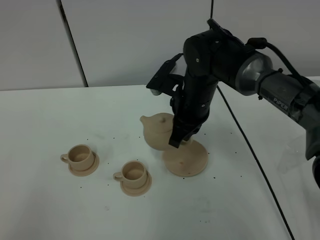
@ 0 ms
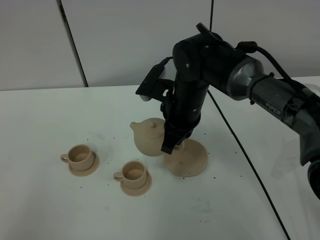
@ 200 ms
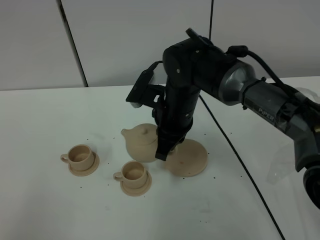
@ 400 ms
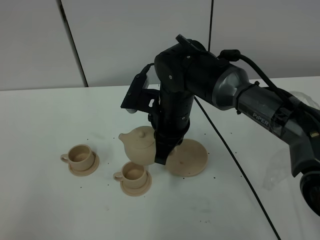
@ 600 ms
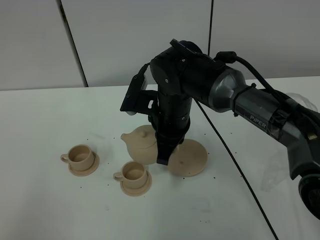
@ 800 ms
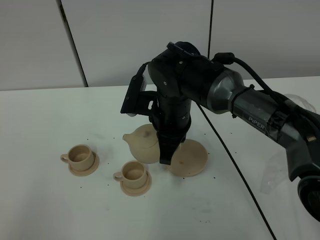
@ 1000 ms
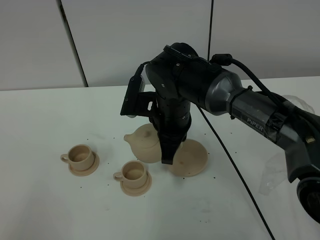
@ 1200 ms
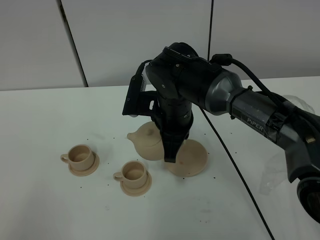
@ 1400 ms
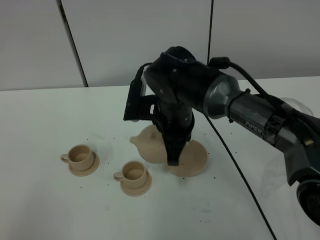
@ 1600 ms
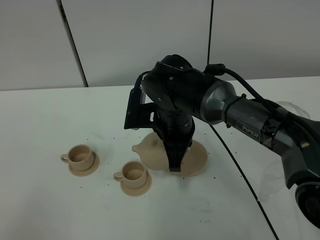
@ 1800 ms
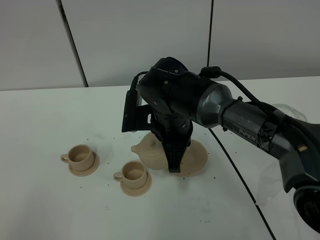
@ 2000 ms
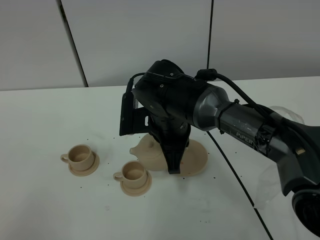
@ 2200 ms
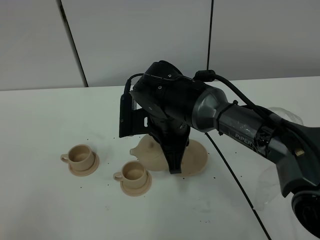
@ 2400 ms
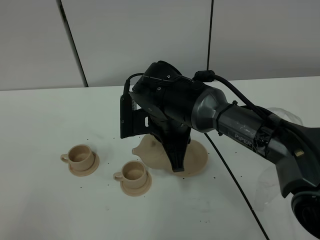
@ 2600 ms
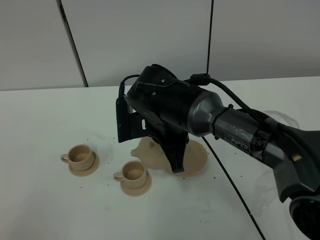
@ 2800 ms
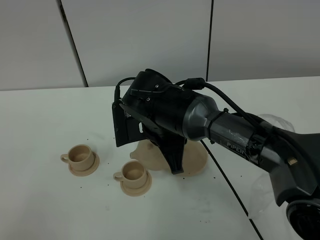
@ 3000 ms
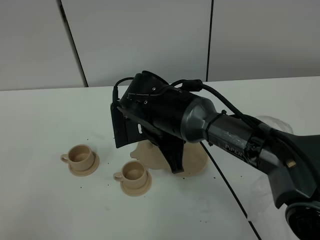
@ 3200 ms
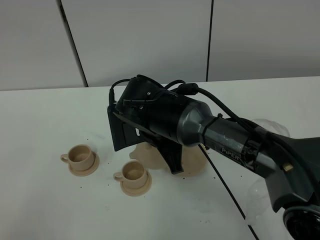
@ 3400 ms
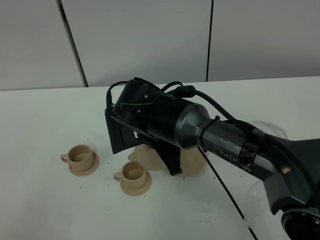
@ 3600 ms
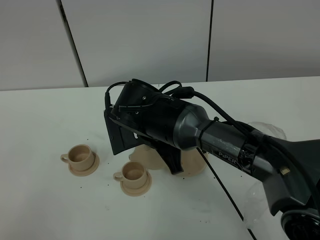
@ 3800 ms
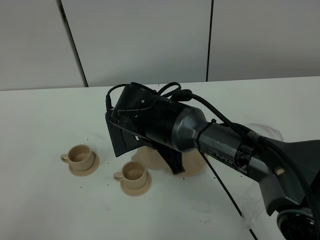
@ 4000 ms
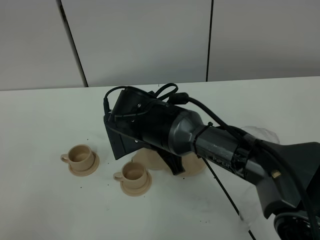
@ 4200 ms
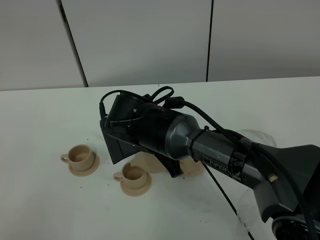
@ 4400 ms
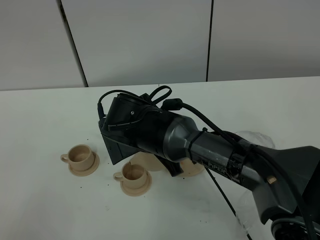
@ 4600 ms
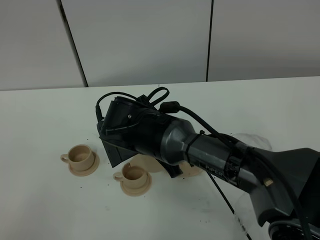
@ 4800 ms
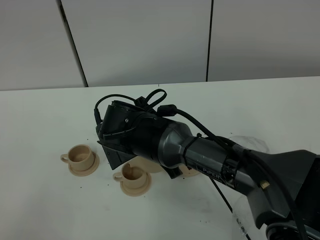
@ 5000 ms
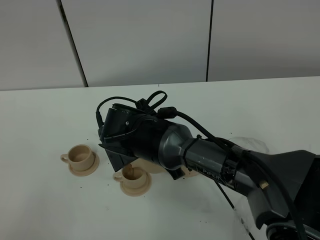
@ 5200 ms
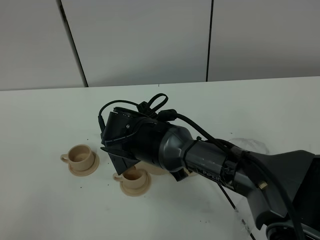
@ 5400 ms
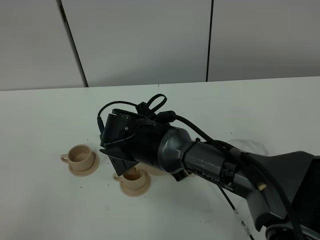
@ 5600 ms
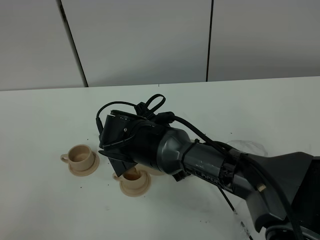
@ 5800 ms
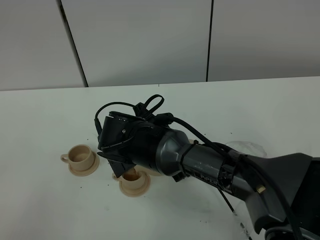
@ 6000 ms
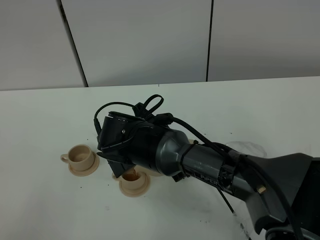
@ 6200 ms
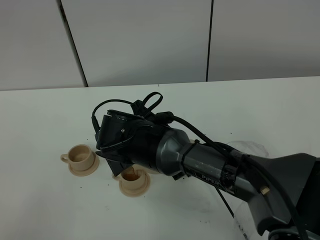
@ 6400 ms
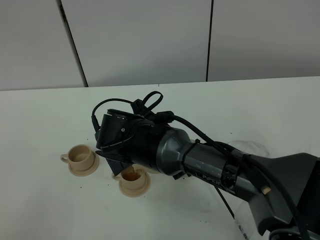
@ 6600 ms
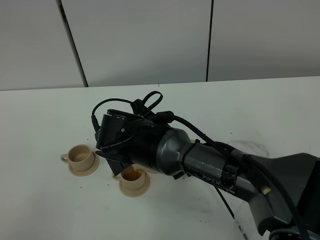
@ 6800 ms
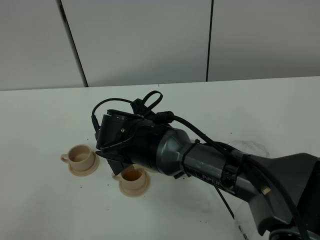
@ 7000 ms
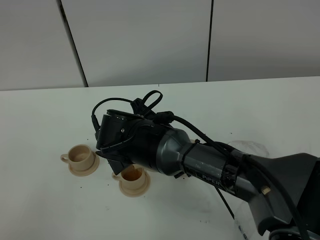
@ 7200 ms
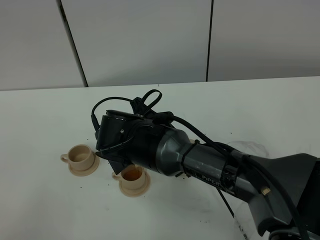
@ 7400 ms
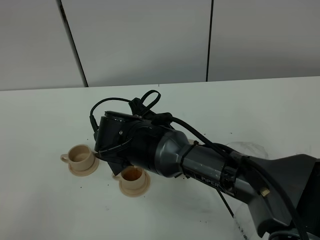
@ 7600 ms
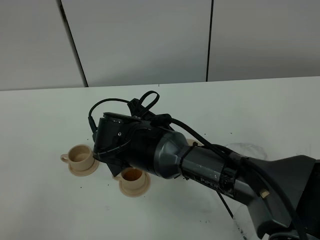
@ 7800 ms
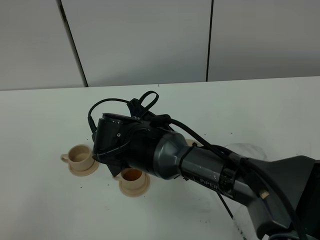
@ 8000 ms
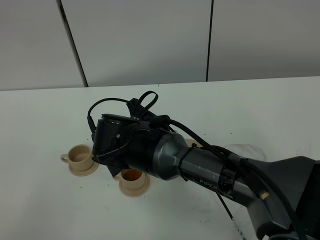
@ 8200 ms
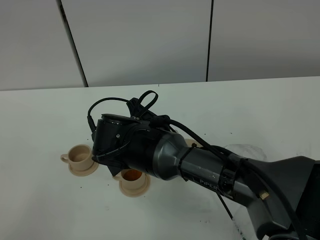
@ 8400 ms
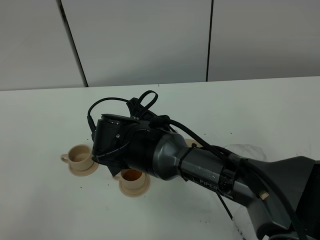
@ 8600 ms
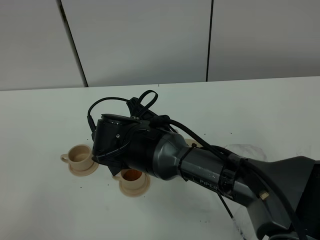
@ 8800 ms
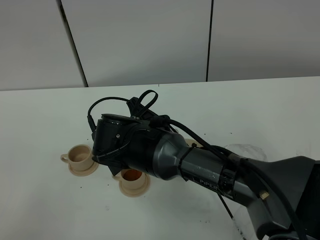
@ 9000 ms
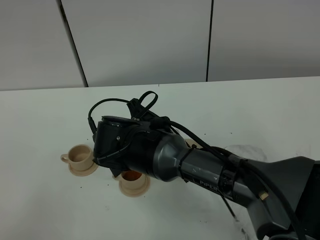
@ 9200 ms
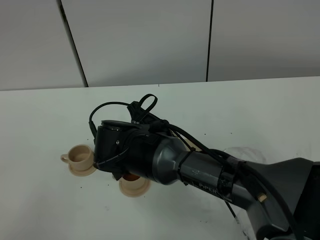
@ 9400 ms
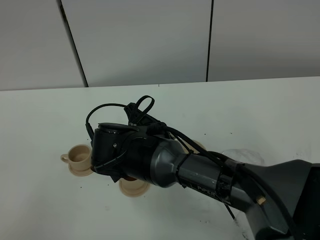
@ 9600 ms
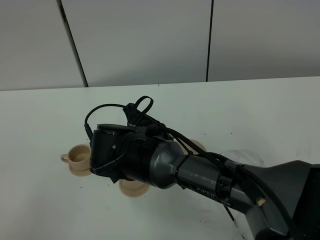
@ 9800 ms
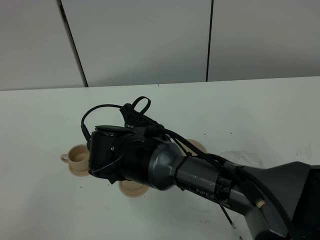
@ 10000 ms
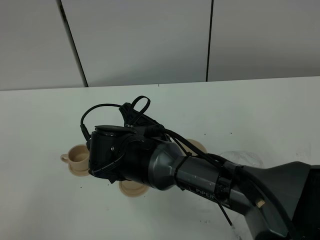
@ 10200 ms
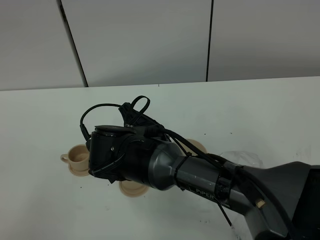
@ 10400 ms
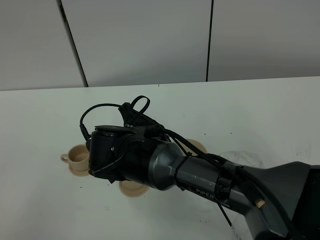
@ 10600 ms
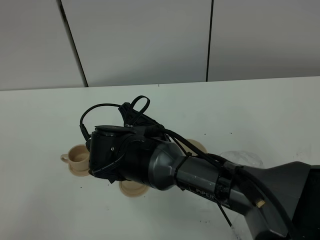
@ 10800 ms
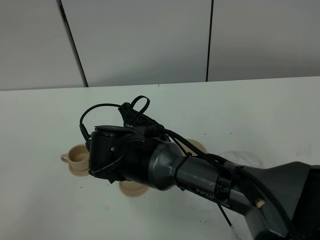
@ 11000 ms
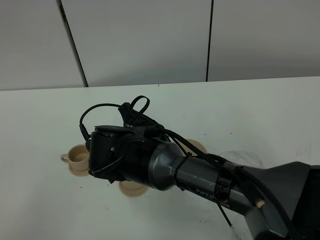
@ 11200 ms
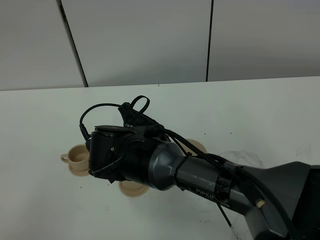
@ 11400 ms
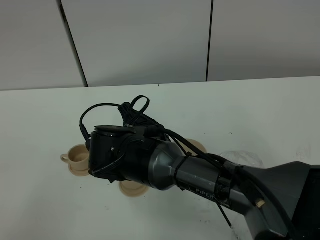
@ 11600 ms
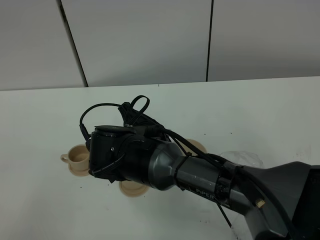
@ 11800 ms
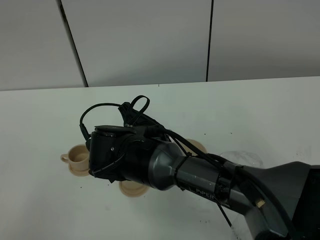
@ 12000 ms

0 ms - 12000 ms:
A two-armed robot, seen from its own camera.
Task of the whole recording: grasp the brown teapot and pour the tea into the two brown teacups one by one, put the brown teapot back in its original place.
0 ms - 1600 ms: The right gripper changes place by about 5 cm.
1600 ms - 3000 ms: The grippers stay close to where they were, moving slightly.
3000 ms - 4400 ms: The grippers make only small movements.
4400 ms - 6000 ms: The grippers make only small movements.
6000 ms - 7600 ms: The two grippers keep their place.
7600 ms - 9000 ms: The two grippers keep their place.
9000 ms - 10400 ms: Neither gripper changes place.
10400 ms - 12000 ms: Both grippers stay put.

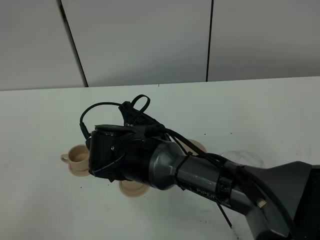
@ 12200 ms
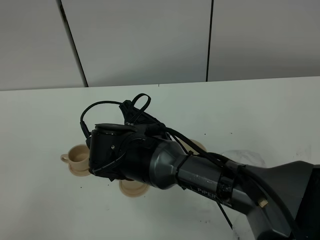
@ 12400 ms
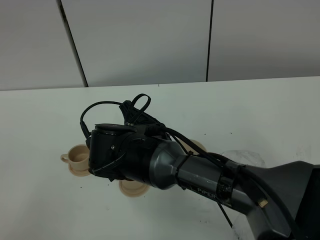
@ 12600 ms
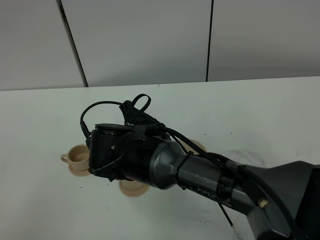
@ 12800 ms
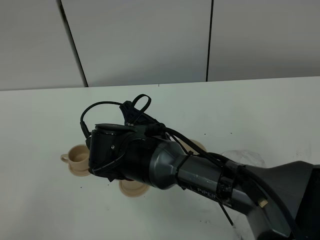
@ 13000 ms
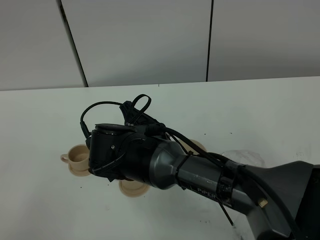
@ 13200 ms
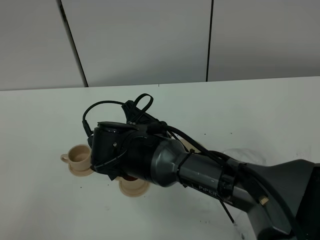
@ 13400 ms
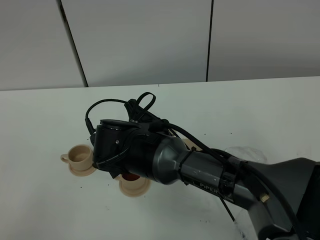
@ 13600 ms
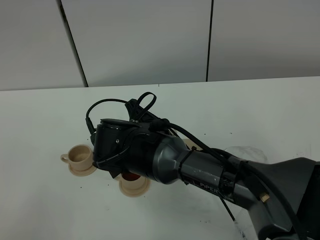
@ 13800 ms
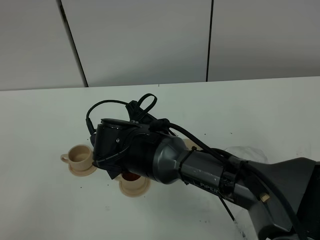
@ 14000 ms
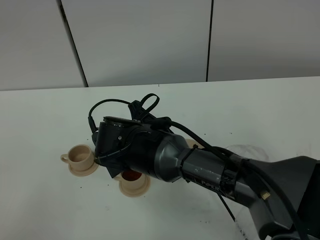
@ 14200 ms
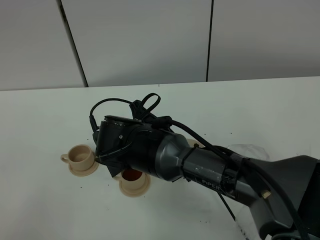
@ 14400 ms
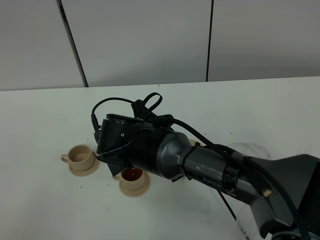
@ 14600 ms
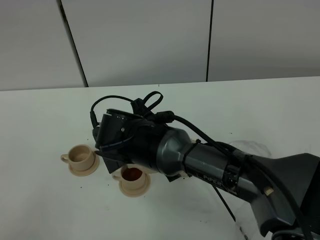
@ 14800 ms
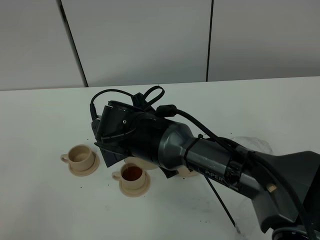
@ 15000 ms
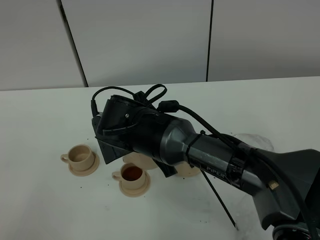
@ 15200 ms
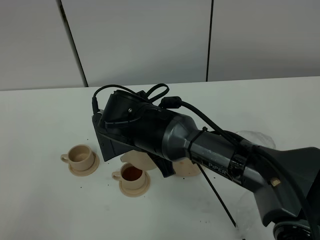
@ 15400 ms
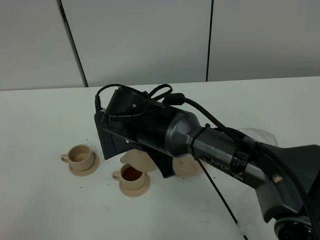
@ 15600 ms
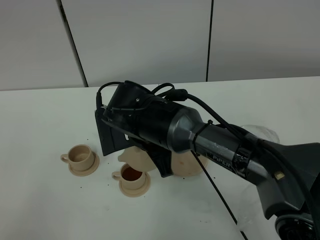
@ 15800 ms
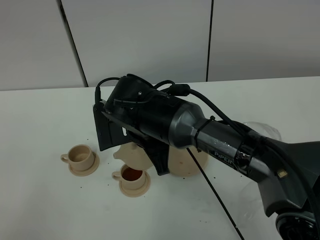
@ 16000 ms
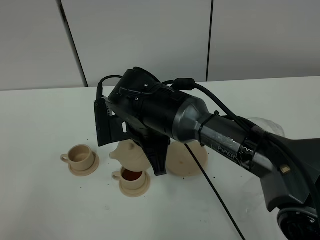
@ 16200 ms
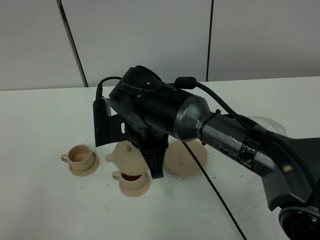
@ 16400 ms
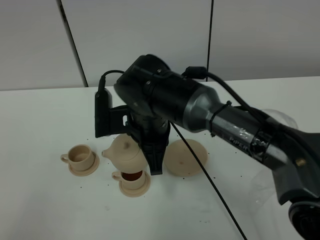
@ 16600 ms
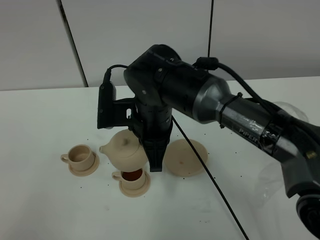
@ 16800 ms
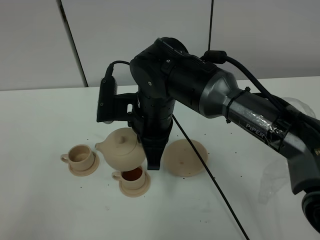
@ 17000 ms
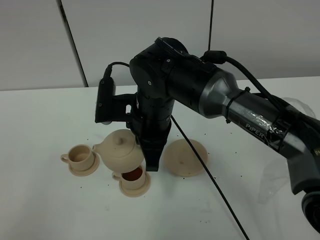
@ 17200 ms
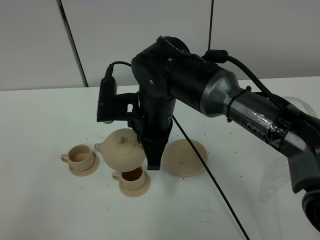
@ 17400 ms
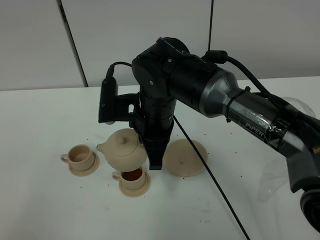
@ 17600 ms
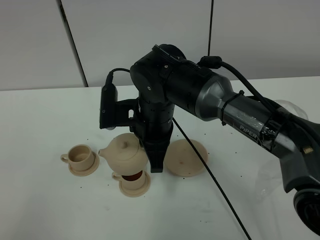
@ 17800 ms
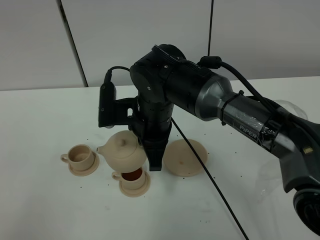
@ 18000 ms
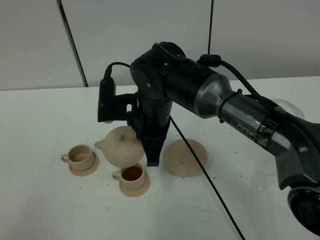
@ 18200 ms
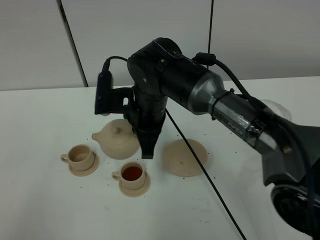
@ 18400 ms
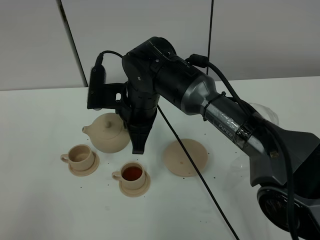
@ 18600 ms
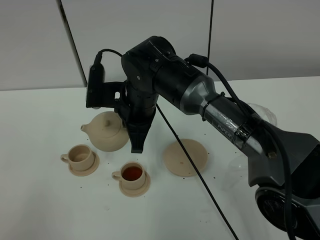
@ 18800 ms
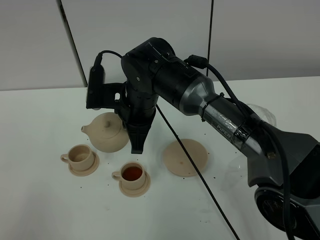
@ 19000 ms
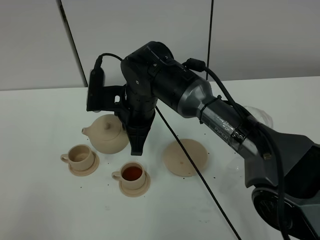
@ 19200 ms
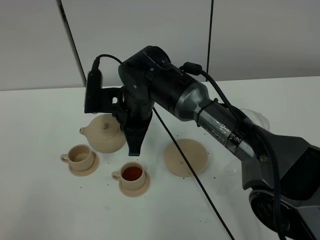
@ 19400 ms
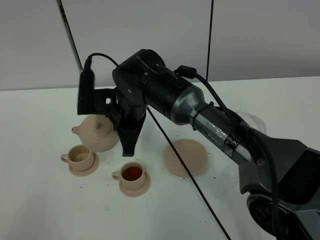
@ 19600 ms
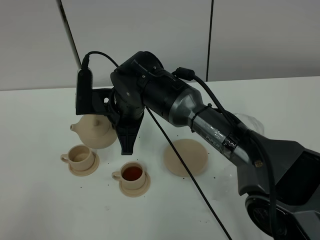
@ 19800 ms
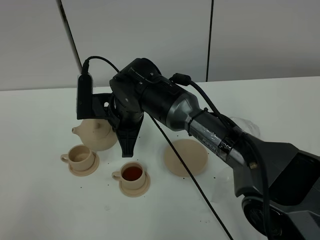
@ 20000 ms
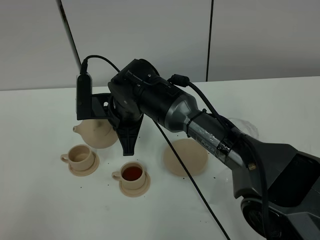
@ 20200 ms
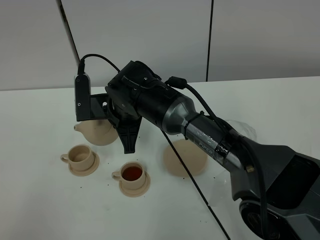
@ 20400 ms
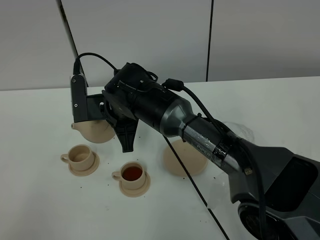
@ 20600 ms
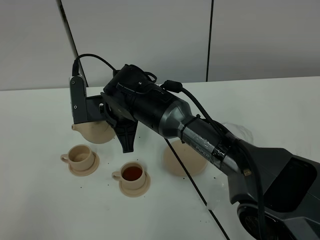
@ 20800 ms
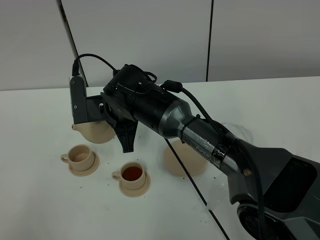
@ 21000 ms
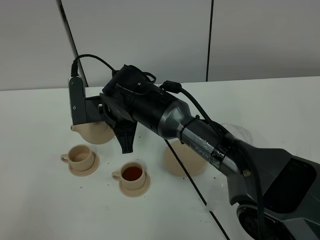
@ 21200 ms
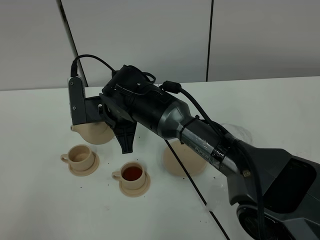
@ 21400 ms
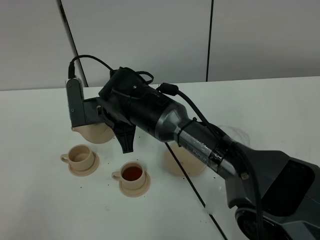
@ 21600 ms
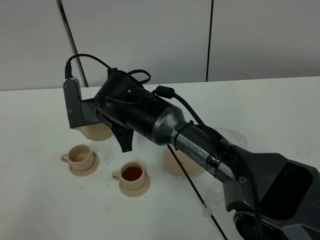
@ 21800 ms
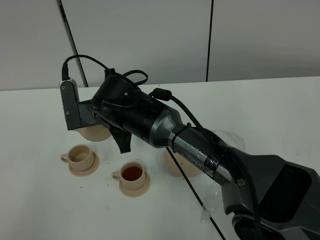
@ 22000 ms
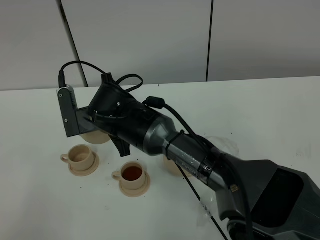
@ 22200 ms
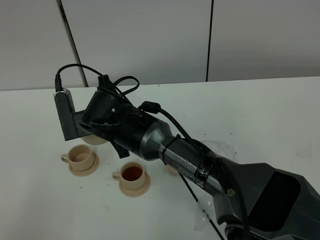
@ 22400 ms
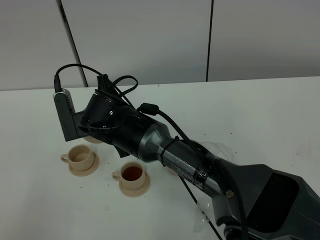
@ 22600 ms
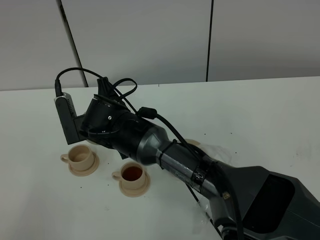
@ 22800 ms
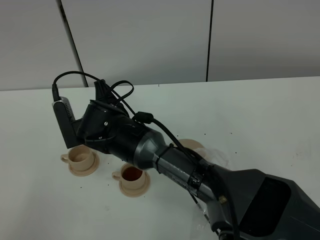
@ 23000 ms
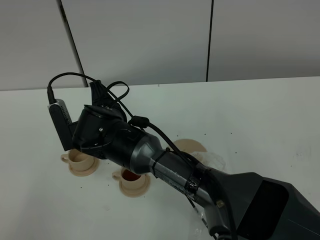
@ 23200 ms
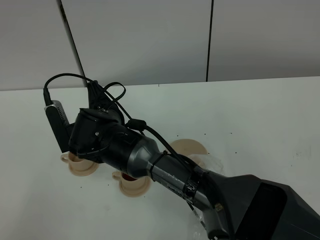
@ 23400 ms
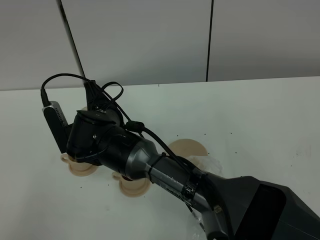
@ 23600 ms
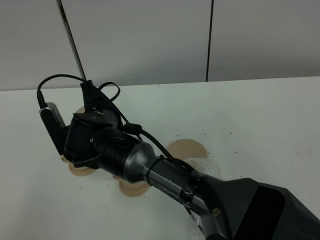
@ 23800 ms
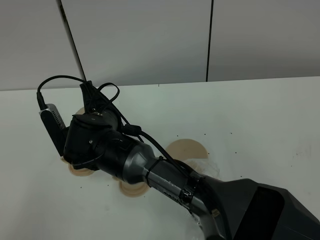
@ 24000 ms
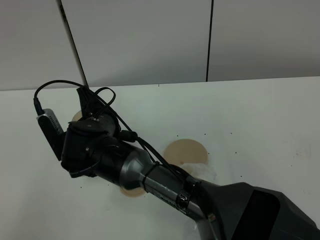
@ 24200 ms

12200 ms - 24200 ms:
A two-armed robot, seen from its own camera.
Task of the whole recording: grasp the brown teapot and pour the tea into the two brown teacups one by one, put the brown teapot back in its original place.
Step, 12200 ms - 15800 ms: Pour tea into the teacup with the right gripper.
12200 ms - 13800 ms: Both grippers stay put.
13800 ms - 15200 ms: There are only small adjustments of the grippers.
16600 ms - 18200 ms: The grippers make only small movements.
18200 ms - 19800 ms: The right gripper shifts by approximately 5 cm.
19800 ms - 21200 ms: The grippers move only a little.
